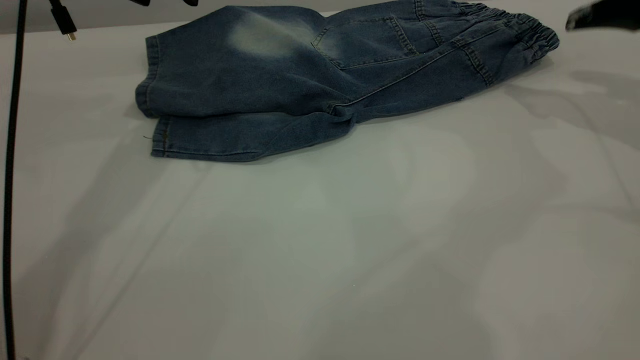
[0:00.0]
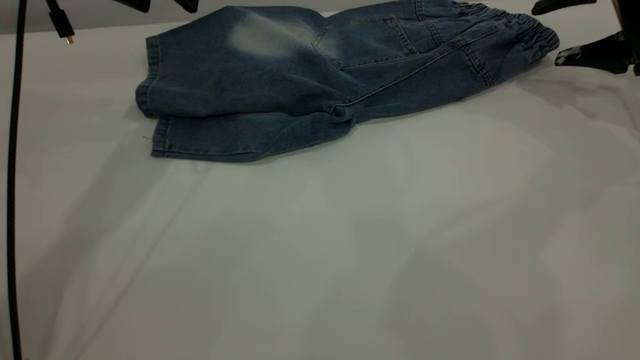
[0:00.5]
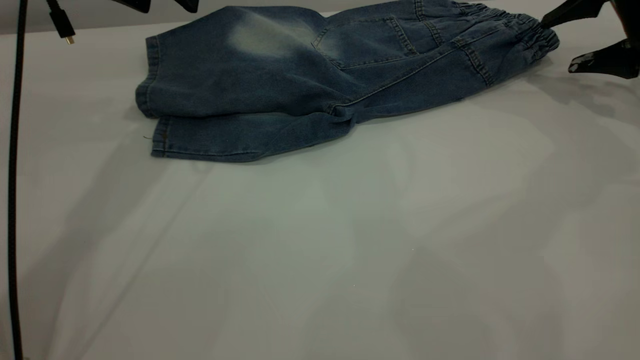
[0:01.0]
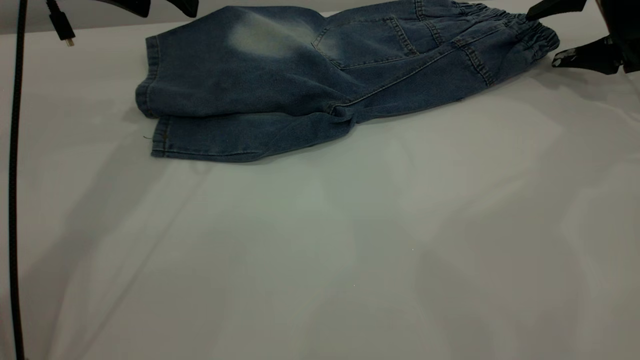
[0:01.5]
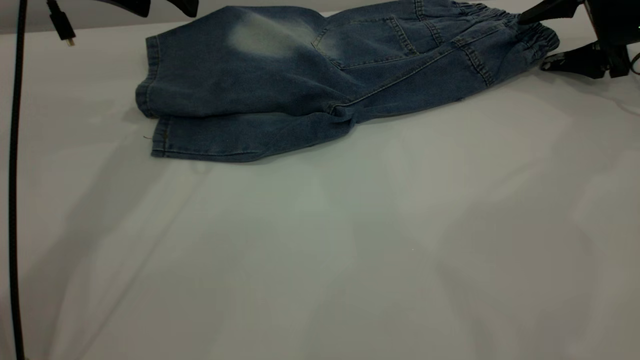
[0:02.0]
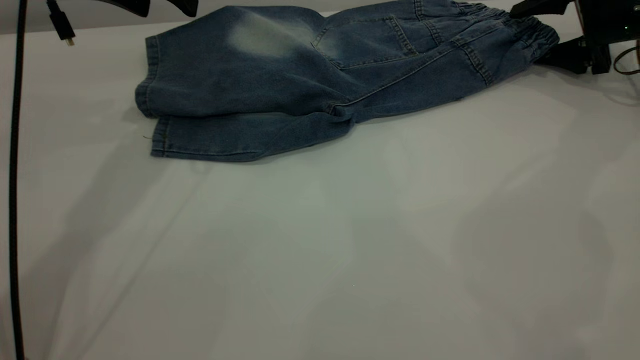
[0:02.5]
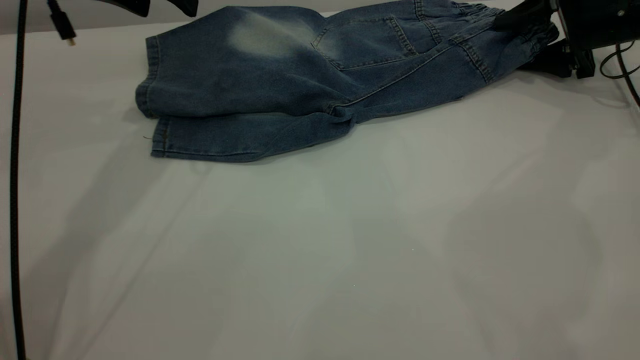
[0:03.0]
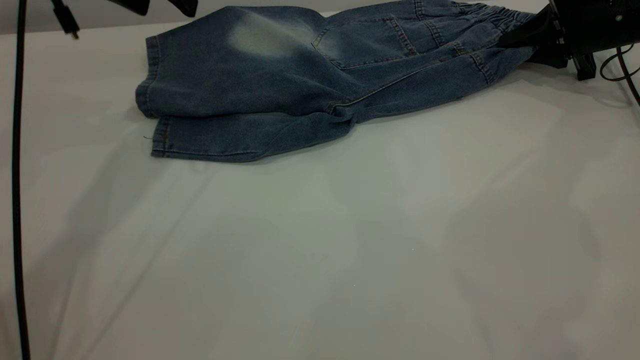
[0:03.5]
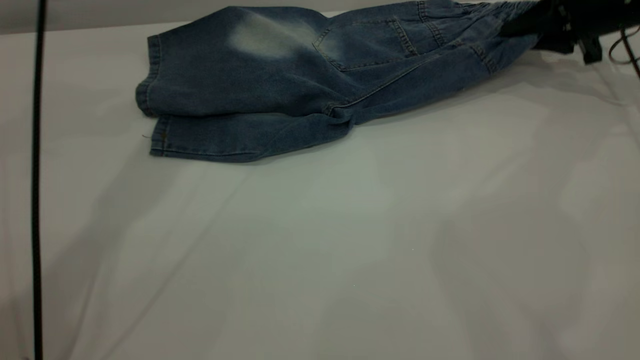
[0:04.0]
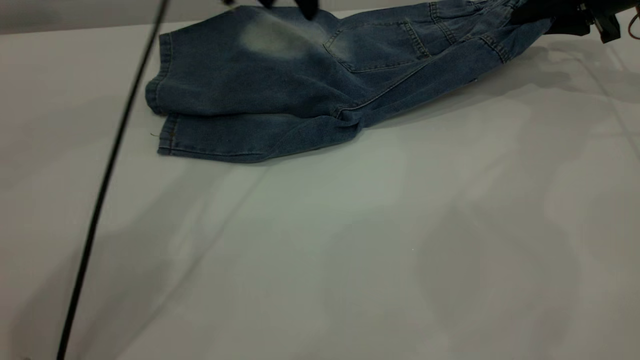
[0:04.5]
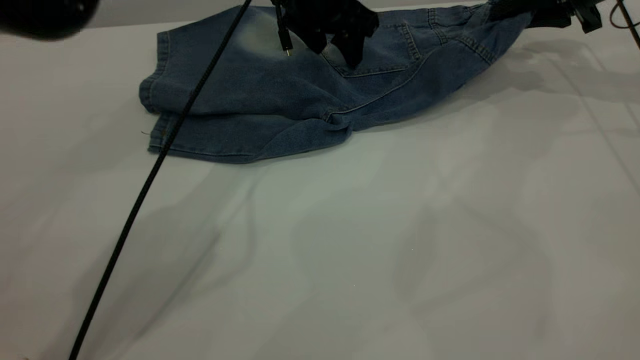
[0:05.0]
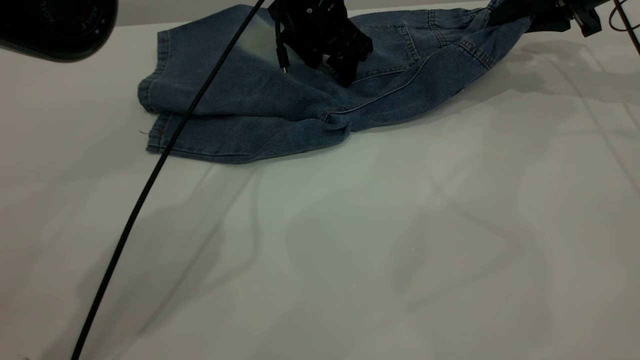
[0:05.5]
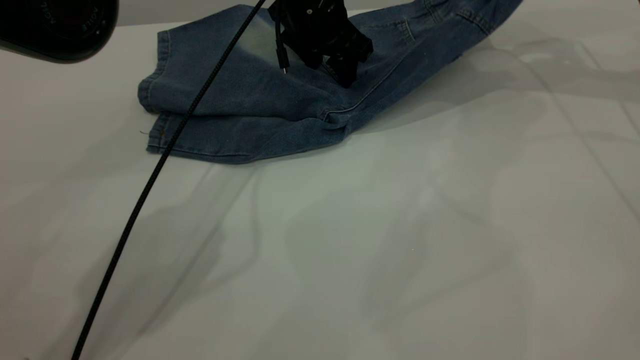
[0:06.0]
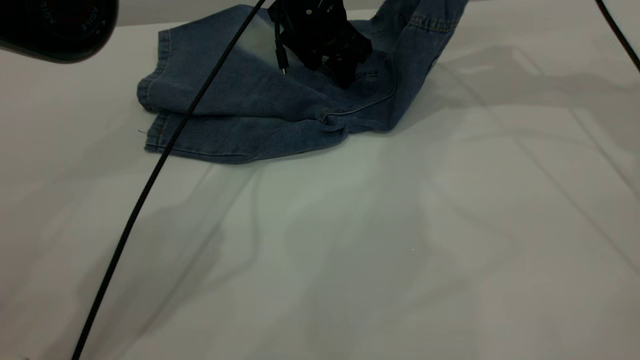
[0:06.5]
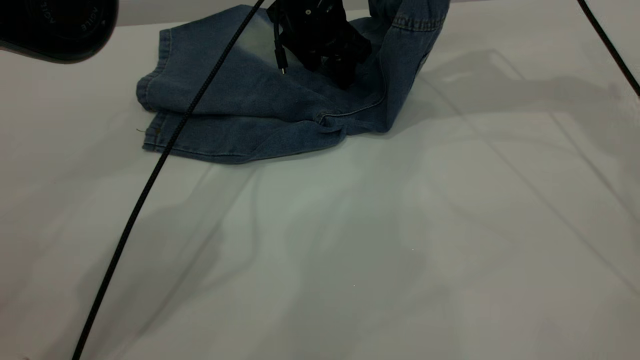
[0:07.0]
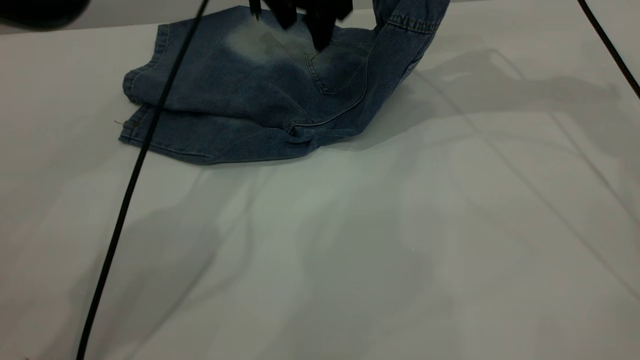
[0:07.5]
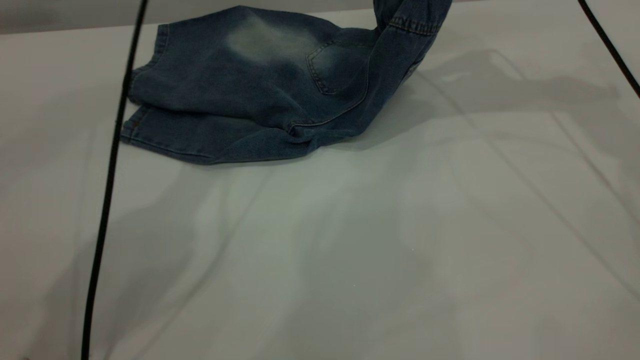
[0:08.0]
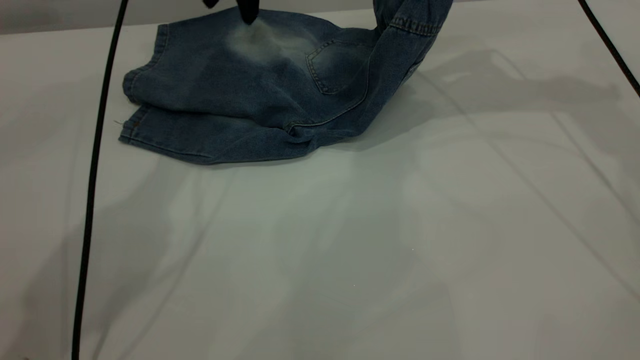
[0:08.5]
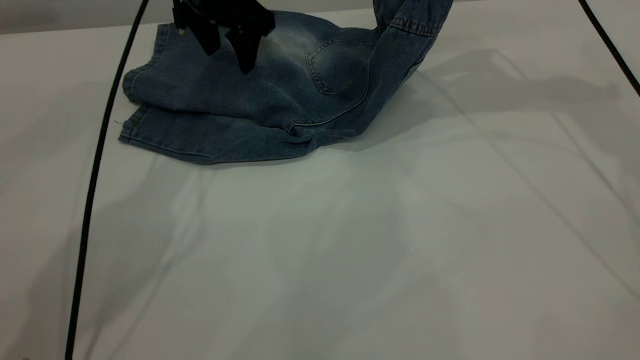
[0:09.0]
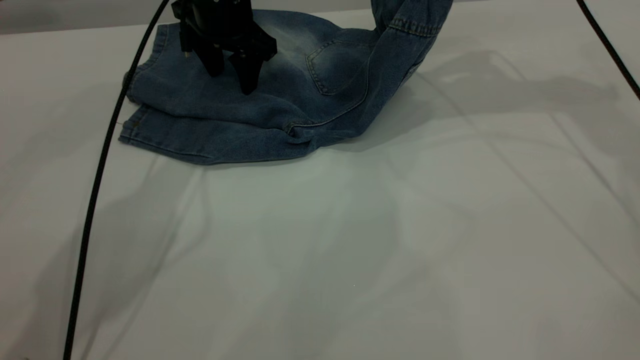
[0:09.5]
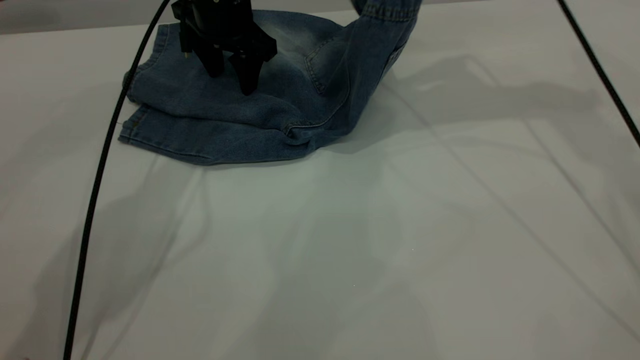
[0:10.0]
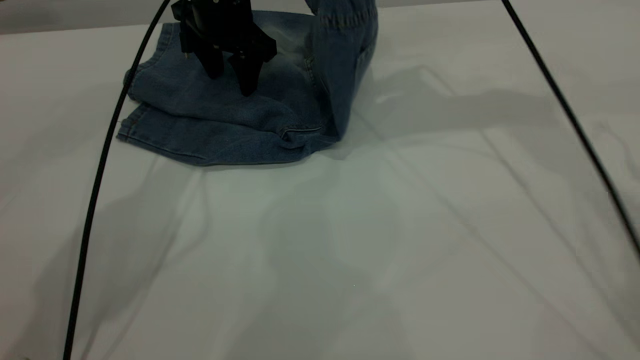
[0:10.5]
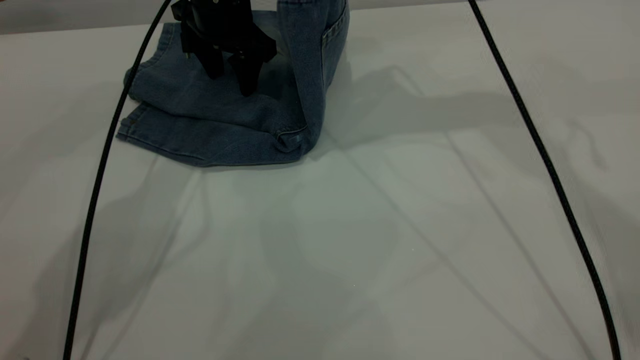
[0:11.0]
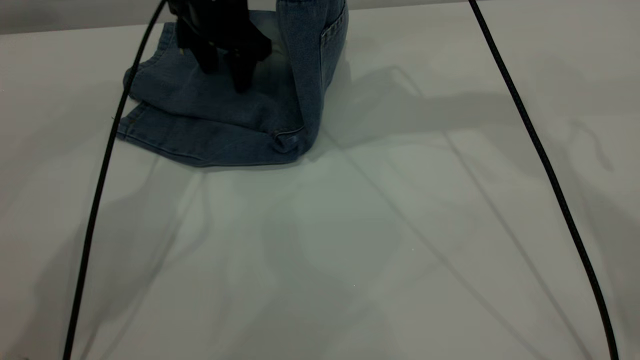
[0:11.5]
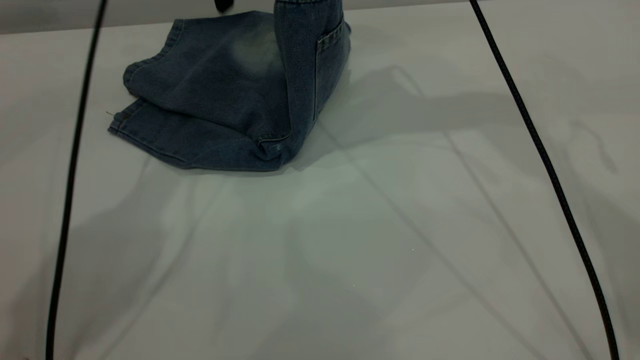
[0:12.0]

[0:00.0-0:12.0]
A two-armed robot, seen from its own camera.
0:00.0 to 0:02.0: The right gripper goes approximately 10 cm downward and forward.
0:02.0 to 0:04.0: The right gripper closes its fingers, while the left gripper travels upward by some 5 cm.
0:04.0 to 0:06.0: The left gripper travels downward and to the right by roughly 20 cm, while the right gripper shifts approximately 10 cm upward.
0:06.0 to 0:08.0: The left gripper travels upward and to the left by roughly 15 cm. The right gripper heads to the left, covering approximately 10 cm.
0:08.0 to 0:10.0: The left gripper moves downward, approximately 10 cm.
0:10.0 to 0:12.0: The right gripper goes about 10 cm to the left. The left gripper moves upward, roughly 10 cm.

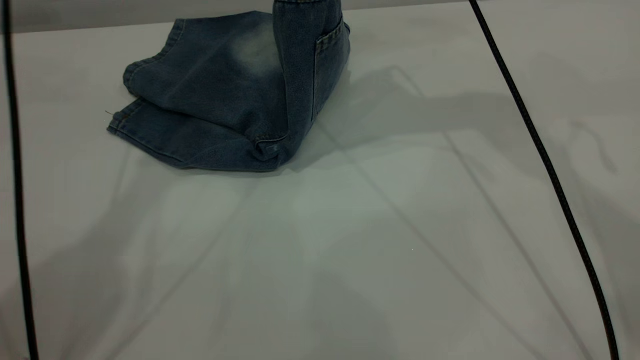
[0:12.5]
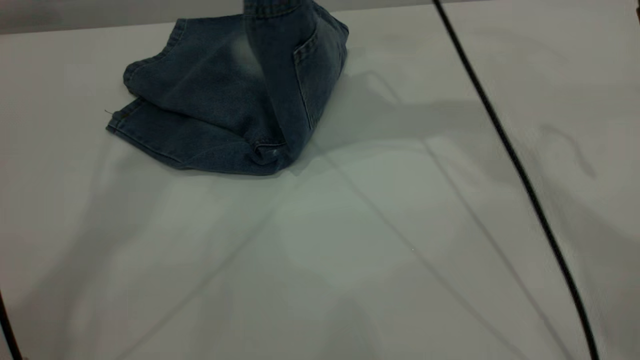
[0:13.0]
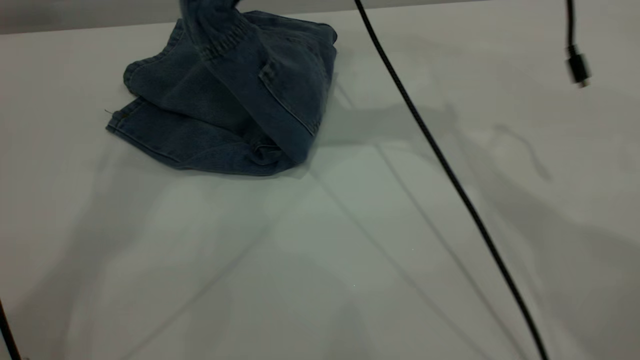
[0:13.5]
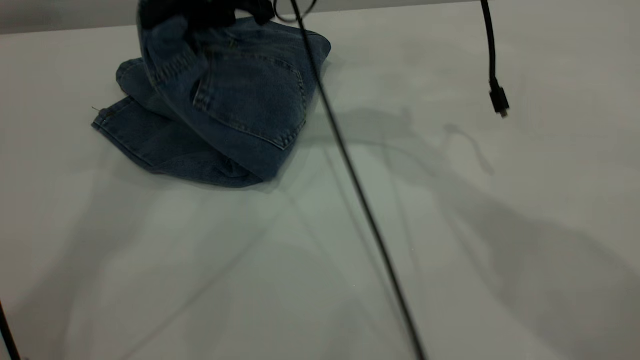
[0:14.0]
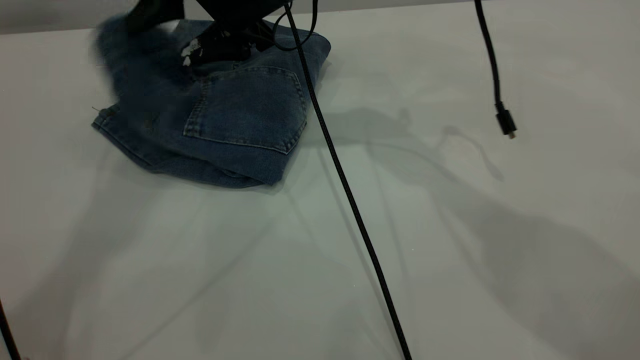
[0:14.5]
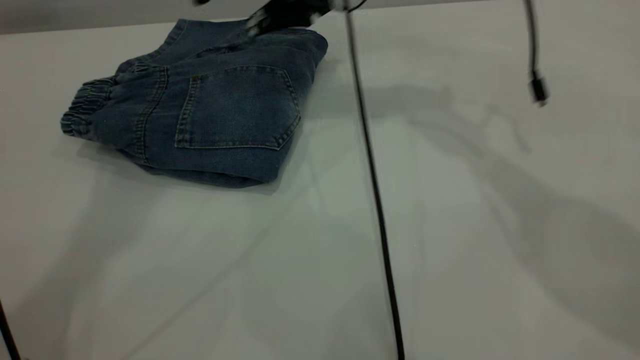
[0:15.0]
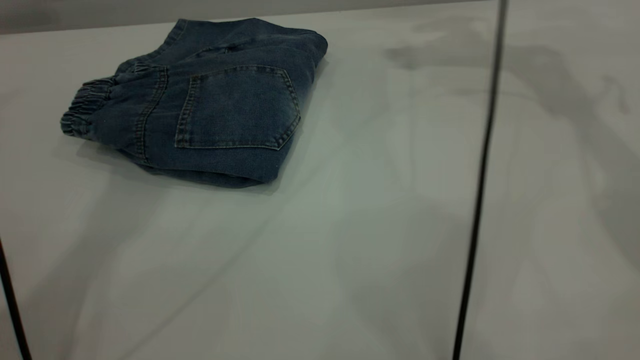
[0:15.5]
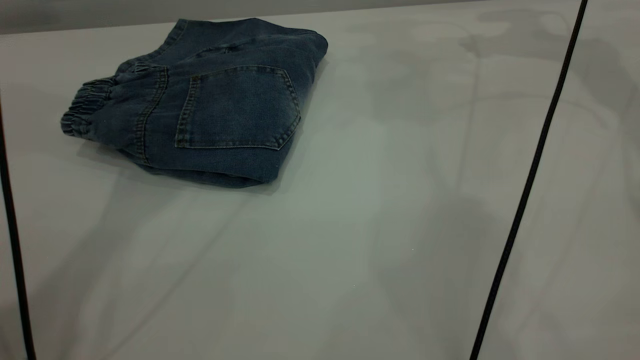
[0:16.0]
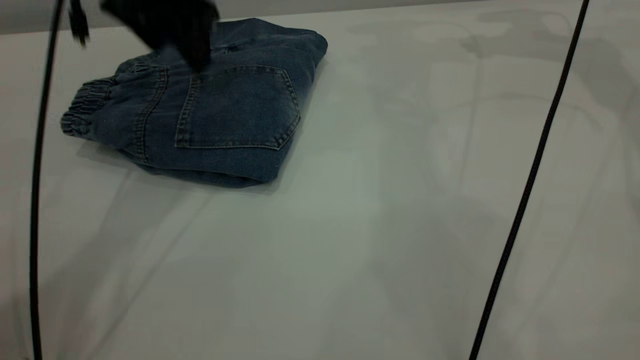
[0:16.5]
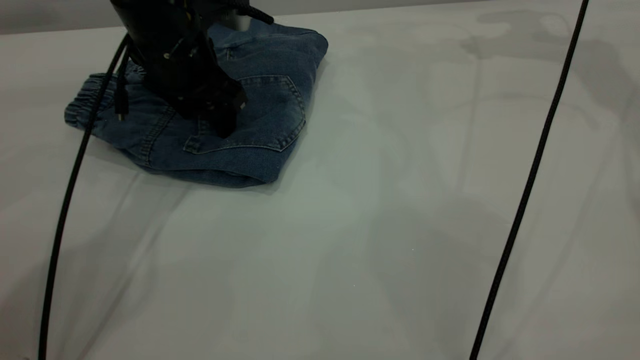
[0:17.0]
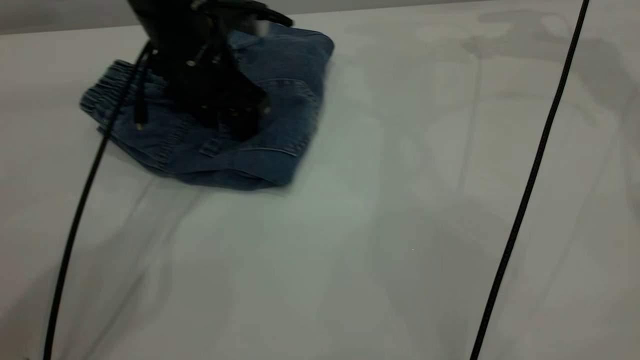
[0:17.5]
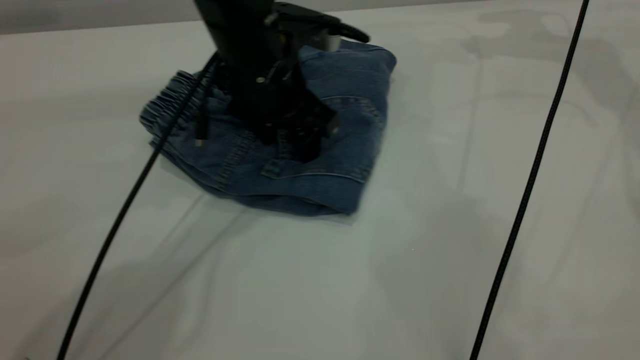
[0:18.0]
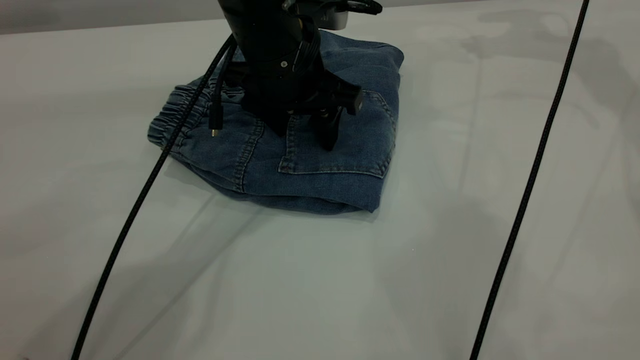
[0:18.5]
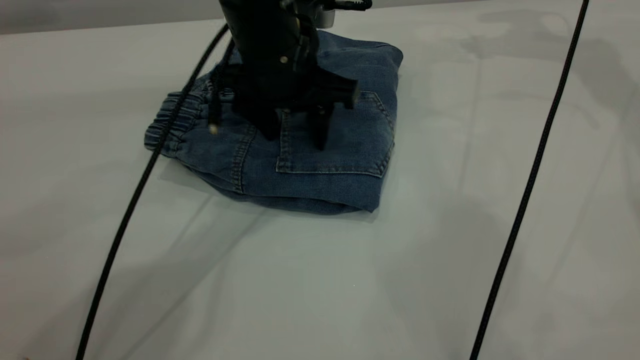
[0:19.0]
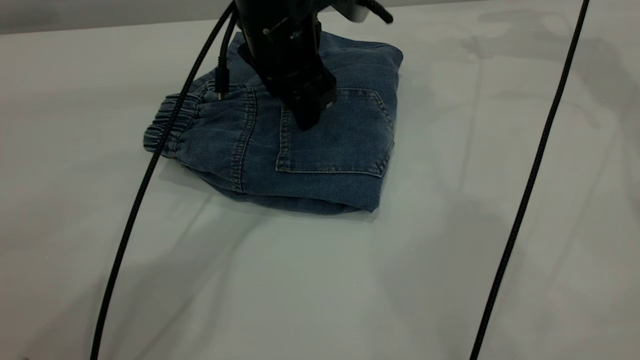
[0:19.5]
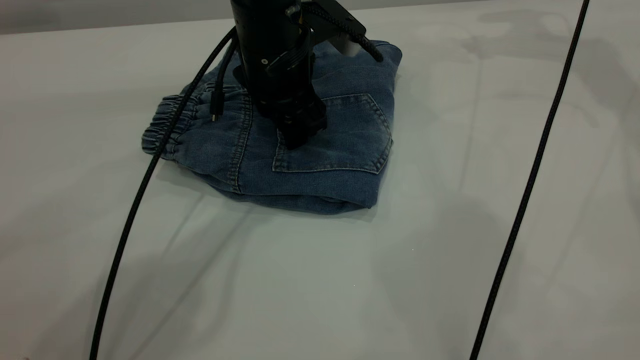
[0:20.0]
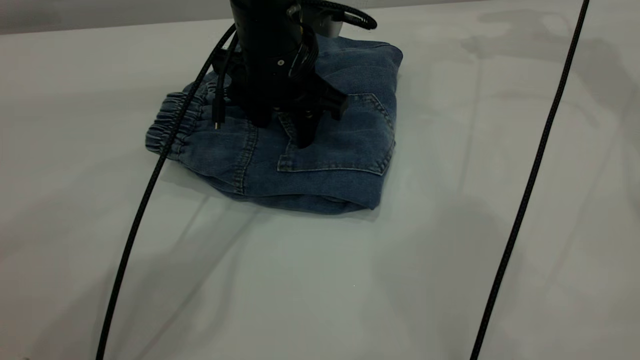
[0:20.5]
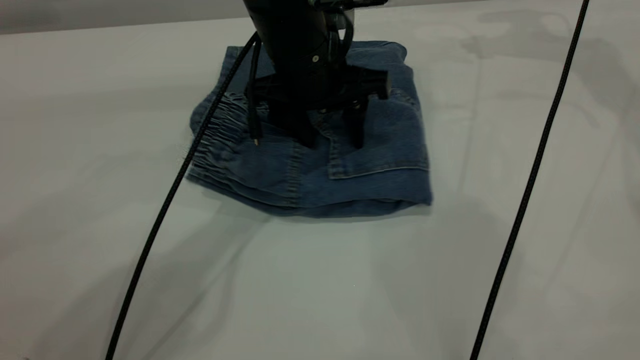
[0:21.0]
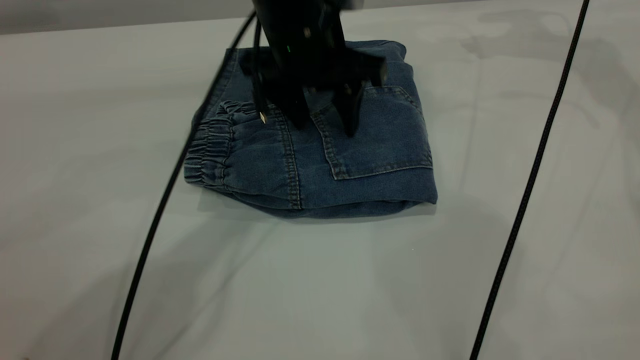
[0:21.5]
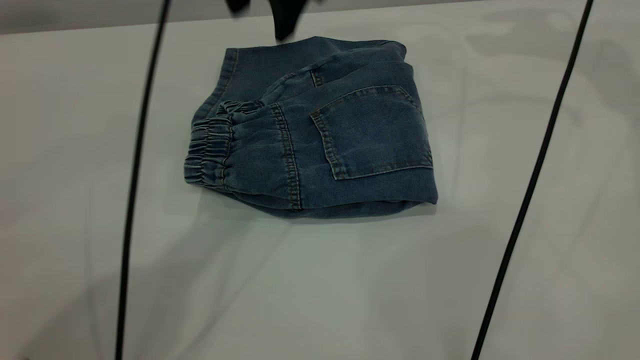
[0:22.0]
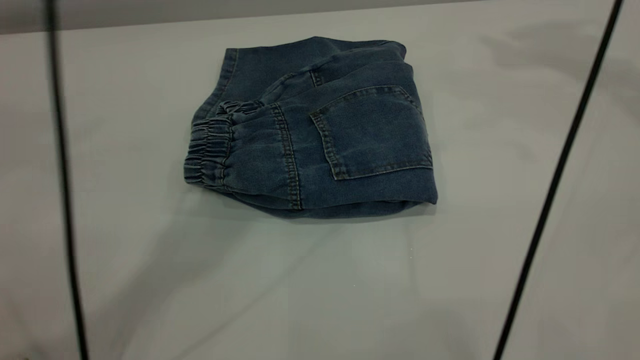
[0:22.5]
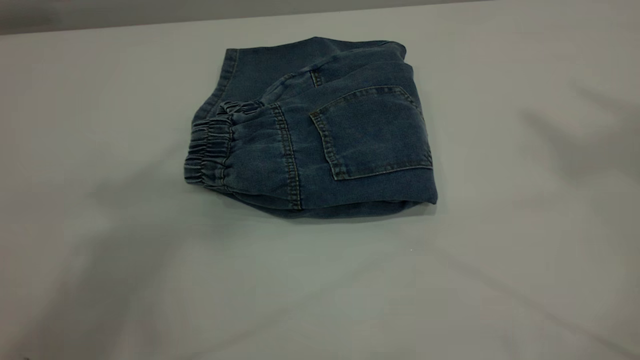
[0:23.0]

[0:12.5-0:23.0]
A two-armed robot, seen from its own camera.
Step, 0:12.5 to 0:15.0: Fold your pants from right to left.
0:12.5 to 0:14.5: The right gripper moves to the left and downward, approximately 15 cm, and opens, while the left gripper heads upward and backward, covering approximately 10 cm.
0:14.5 to 0:16.5: The left gripper travels downward by roughly 30 cm. Meanwhile the right gripper heads to the right, covering some 30 cm.
0:16.5 to 0:19.0: The left gripper is displaced to the right and downward by roughly 10 cm.
0:21.0 to 0:23.0: The left gripper moves upward, roughly 50 cm, while the right gripper shifts about 50 cm upward and backward.
